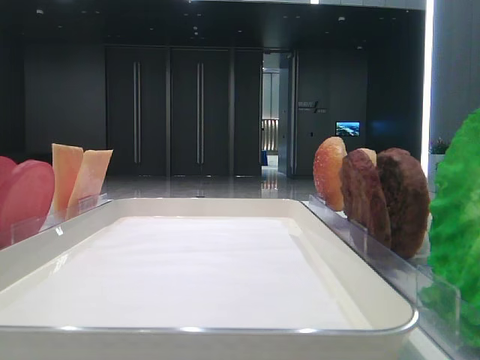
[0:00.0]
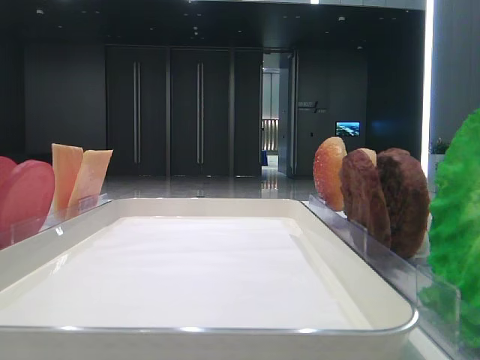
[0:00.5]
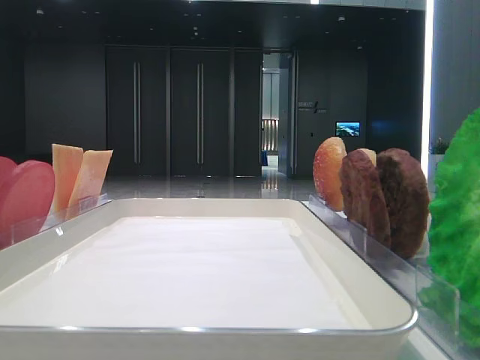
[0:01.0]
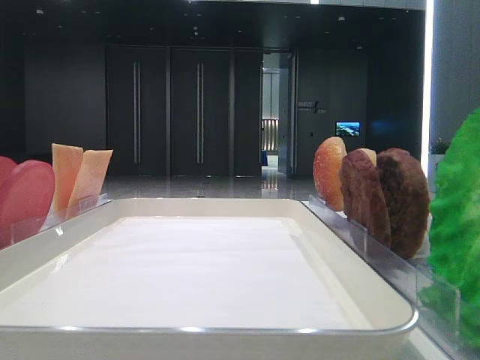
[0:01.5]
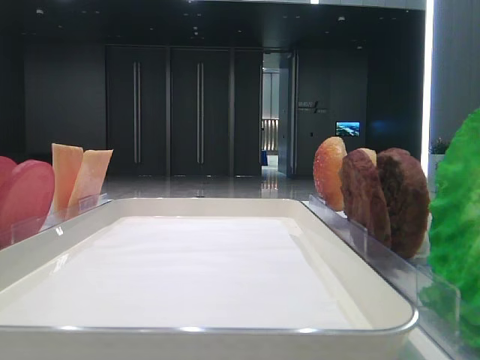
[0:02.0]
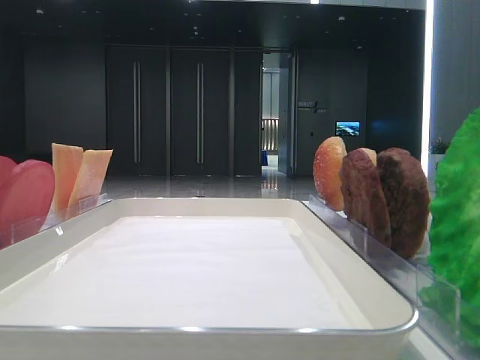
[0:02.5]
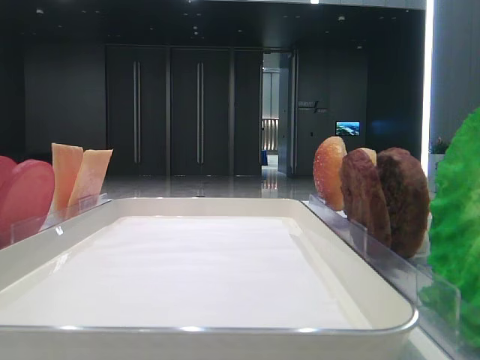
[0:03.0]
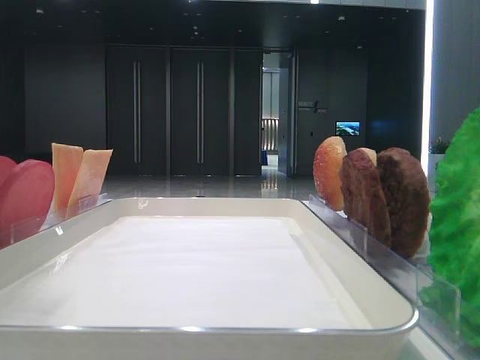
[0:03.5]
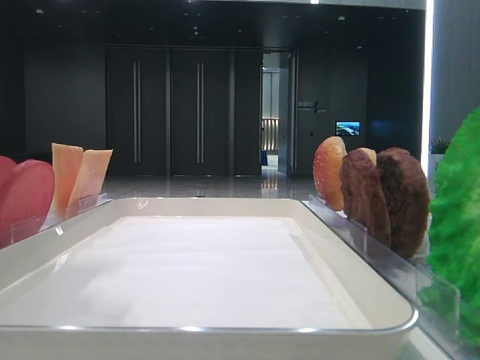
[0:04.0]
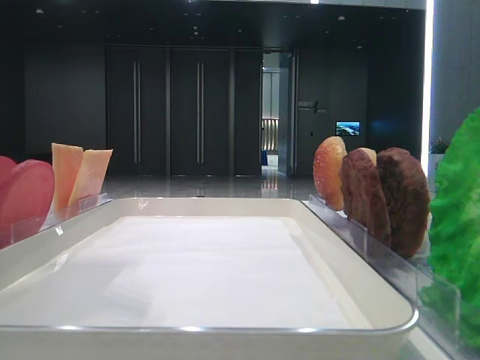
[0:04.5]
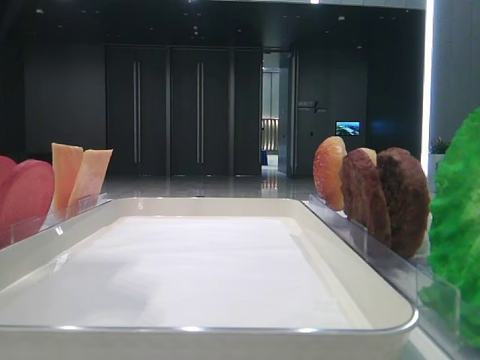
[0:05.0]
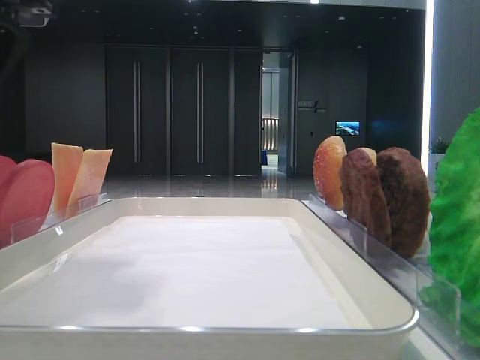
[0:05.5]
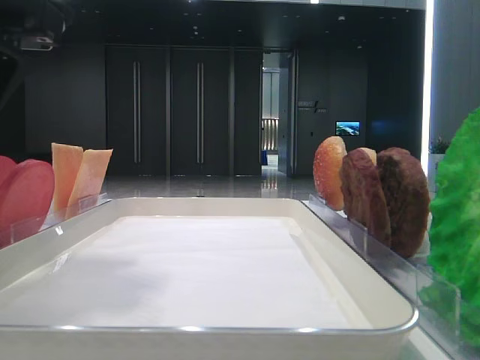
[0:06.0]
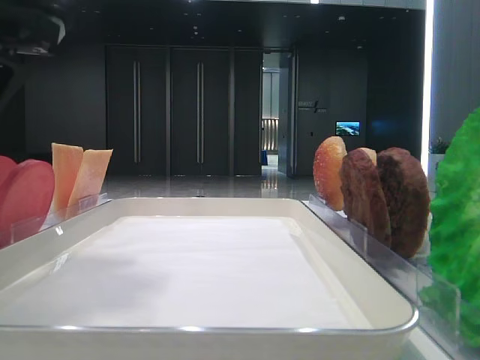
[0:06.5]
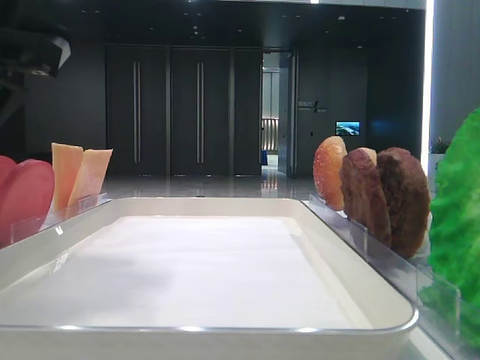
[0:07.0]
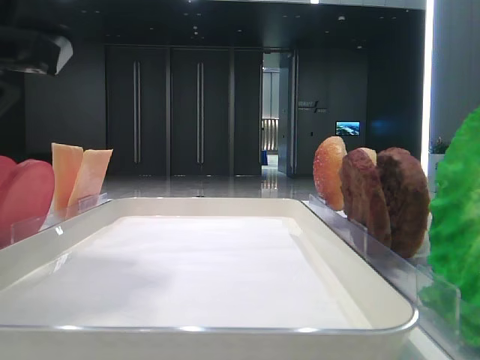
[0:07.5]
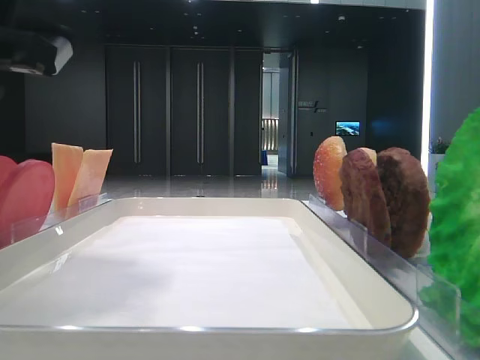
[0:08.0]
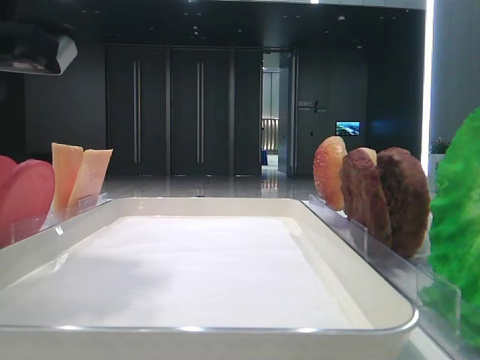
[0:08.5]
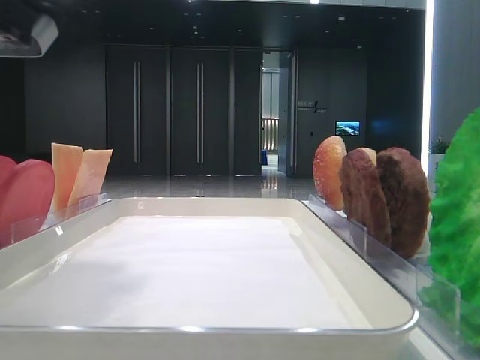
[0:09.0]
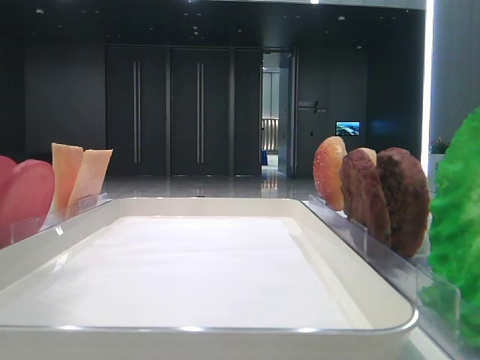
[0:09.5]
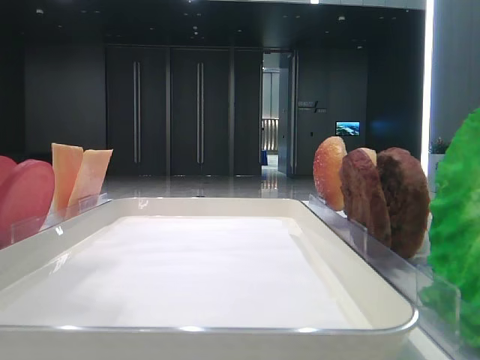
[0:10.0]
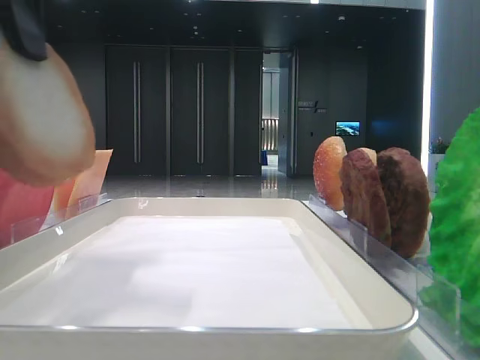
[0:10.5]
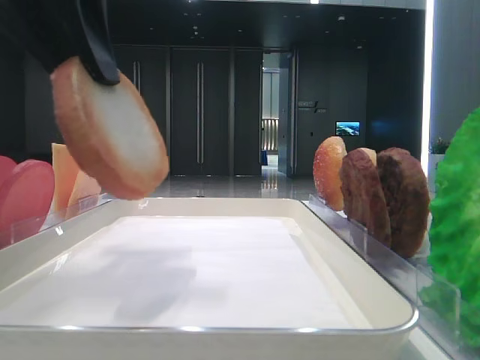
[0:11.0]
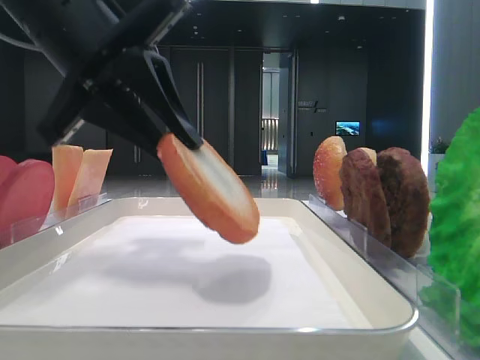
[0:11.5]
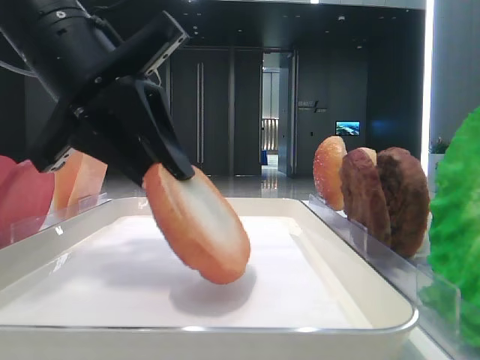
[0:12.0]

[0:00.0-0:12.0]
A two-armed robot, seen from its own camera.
Step, 0:00.0 to 0:08.0: Pick up the bottom bread with the left hand.
0:02.0 to 0:04.0: The left gripper moves forward and to the right, roughly 15 cm.
0:04.0 to 0:06.0: The left gripper shifts approximately 10 cm downward.
0:08.0 to 0:10.0: The left gripper is displaced upward by about 5 cm.
0:10.0 to 0:12.0: The left gripper travels downward, forward and to the right by some 15 cm.

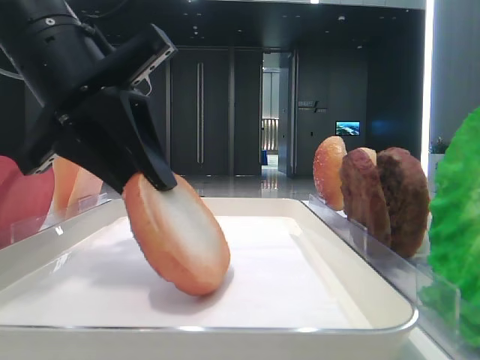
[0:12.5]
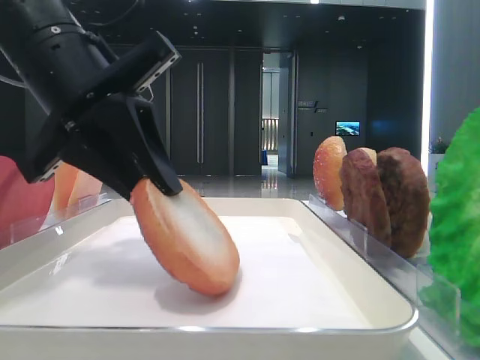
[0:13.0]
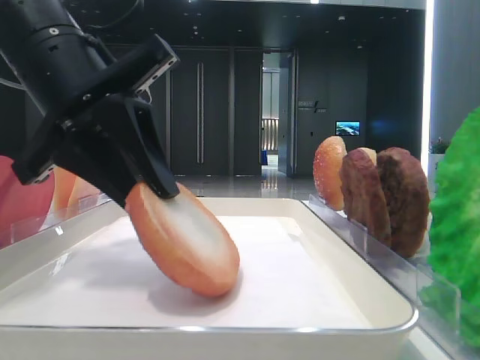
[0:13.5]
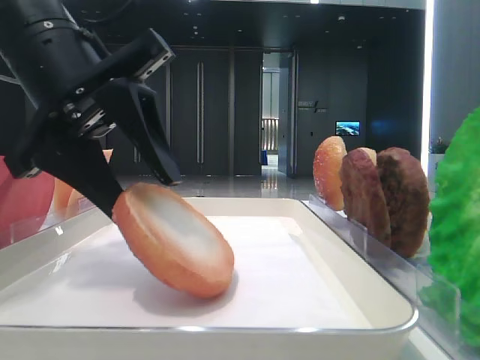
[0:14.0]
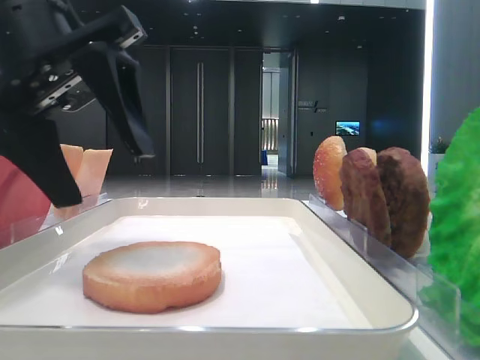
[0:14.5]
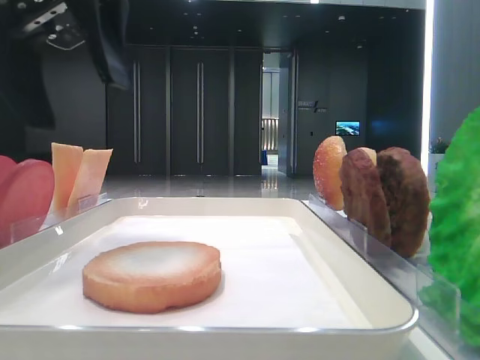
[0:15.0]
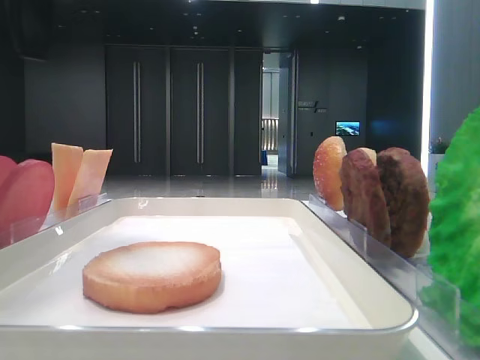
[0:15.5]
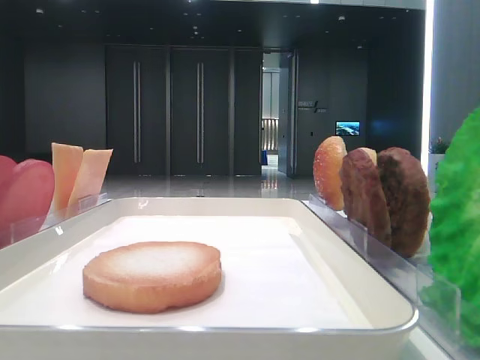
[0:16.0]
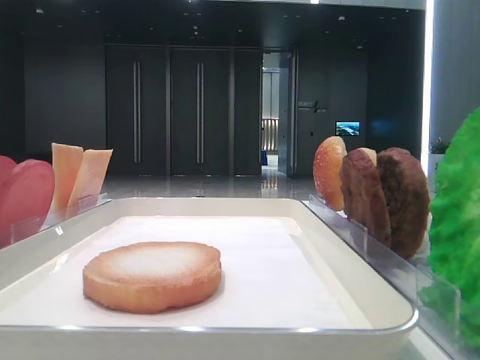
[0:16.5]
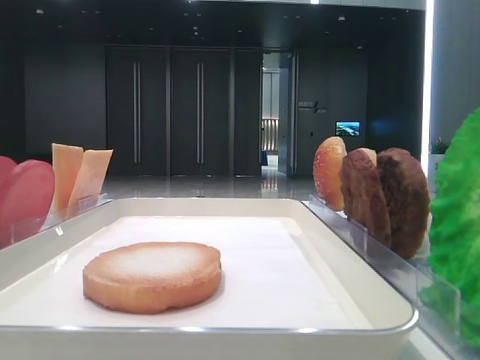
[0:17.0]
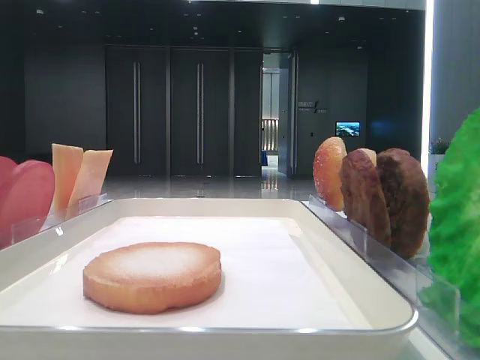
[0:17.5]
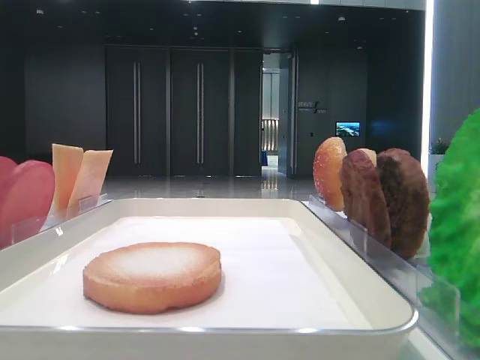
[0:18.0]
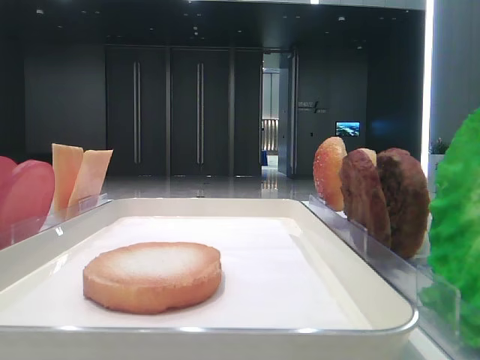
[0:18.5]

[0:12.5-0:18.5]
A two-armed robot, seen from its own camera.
0:12.5 to 0:14.5: The left gripper opens up.
0:14.5 to 0:16.5: The left gripper heads to the left and upward, covering about 25 cm.

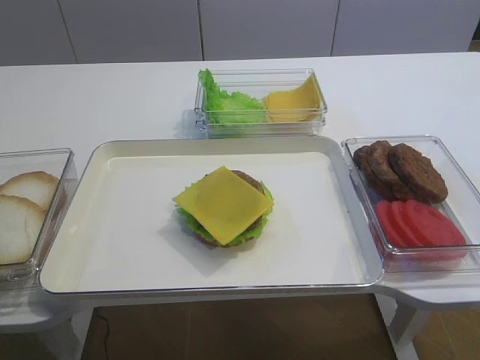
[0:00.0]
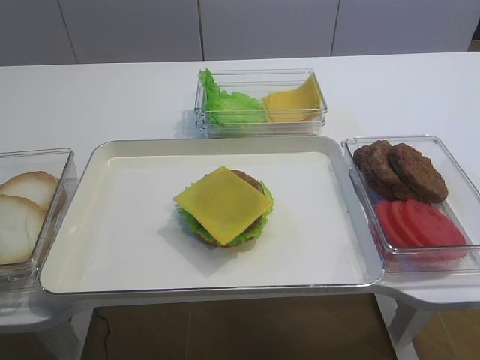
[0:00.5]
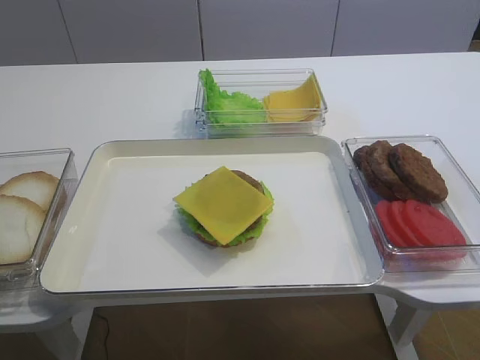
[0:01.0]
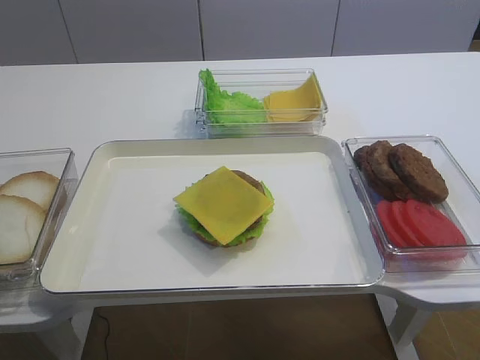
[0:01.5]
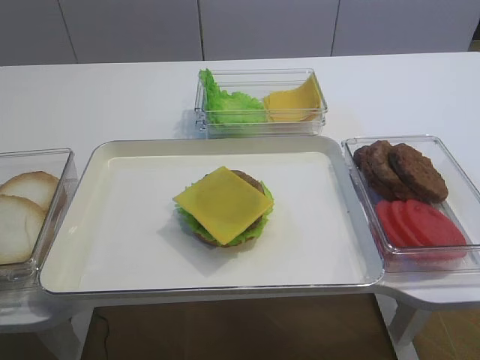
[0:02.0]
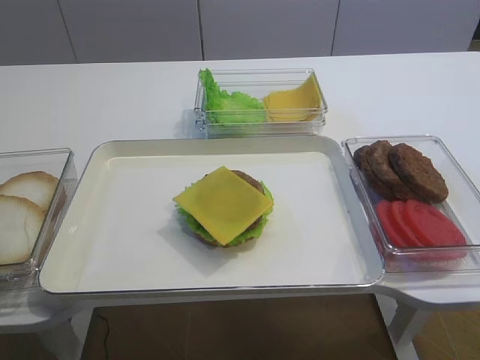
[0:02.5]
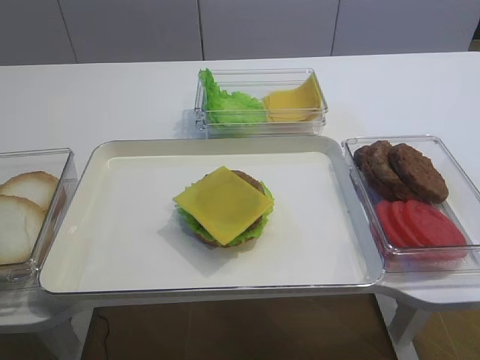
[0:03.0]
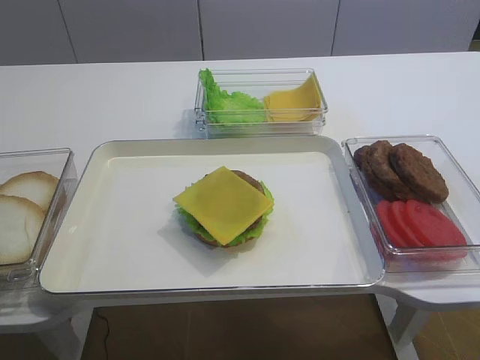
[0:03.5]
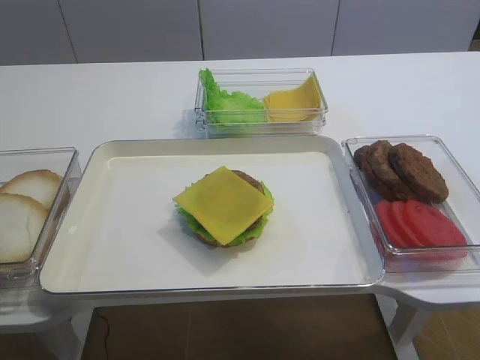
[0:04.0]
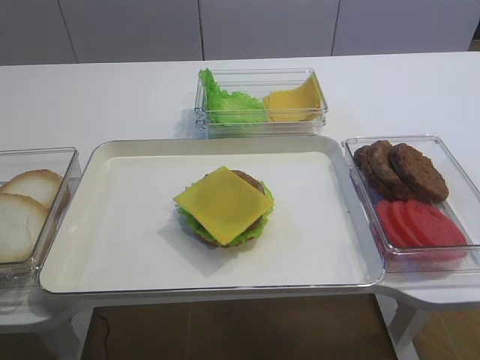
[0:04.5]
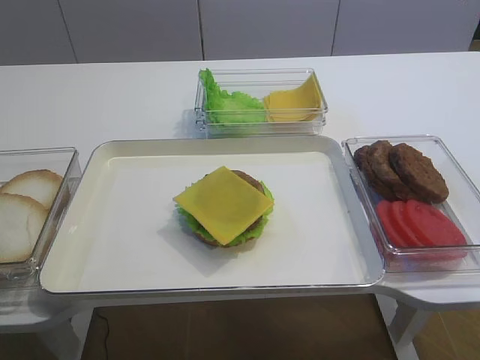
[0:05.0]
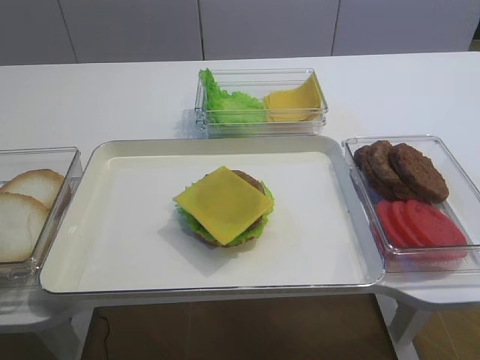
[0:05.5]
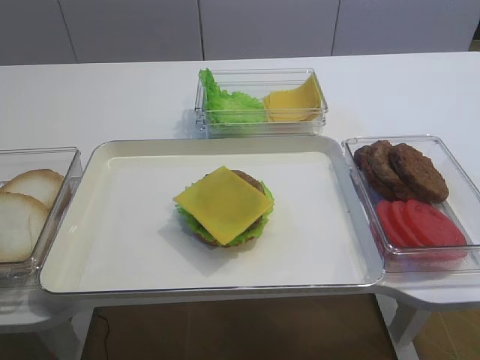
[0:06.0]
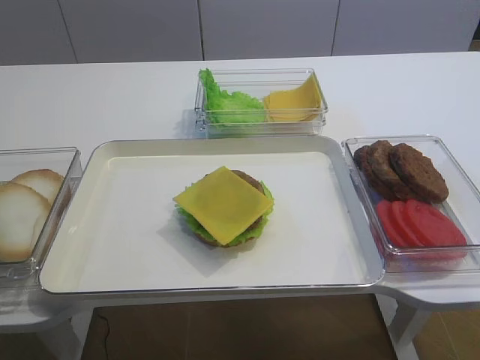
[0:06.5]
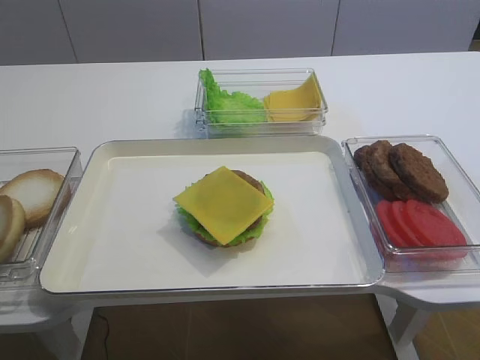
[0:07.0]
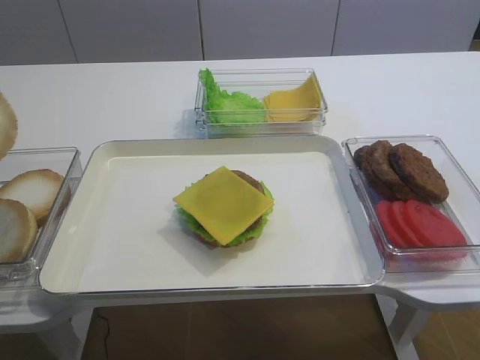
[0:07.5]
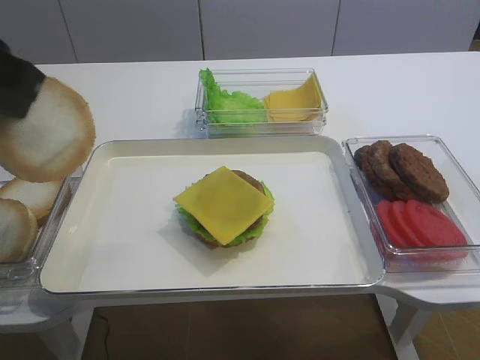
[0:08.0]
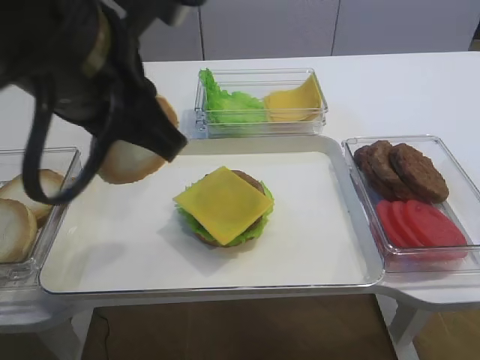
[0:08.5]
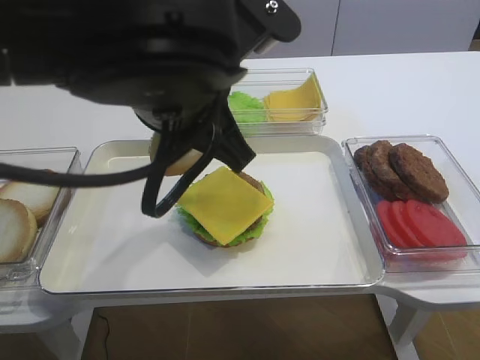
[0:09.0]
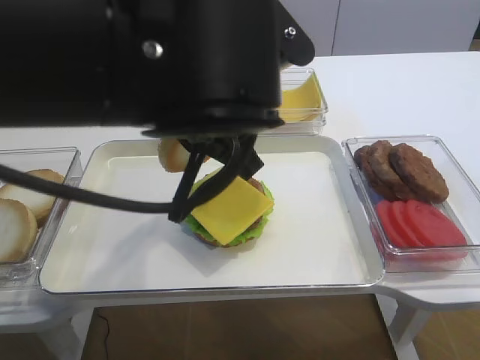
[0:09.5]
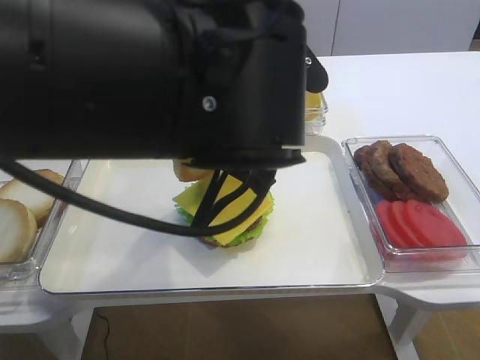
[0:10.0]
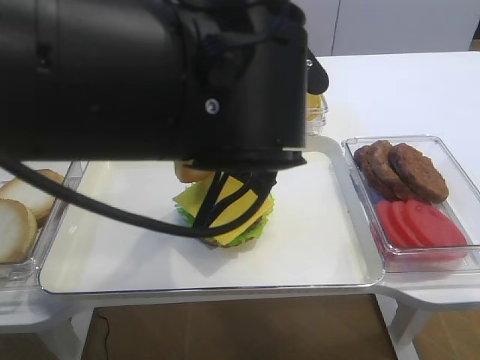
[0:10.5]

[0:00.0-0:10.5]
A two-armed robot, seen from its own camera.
0:06.5 to 0:08.5: The left gripper heads to the right and upward, covering some 25 cm.
0:08.5 to 0:10.5: The left gripper goes about 10 cm to the right and downward.
